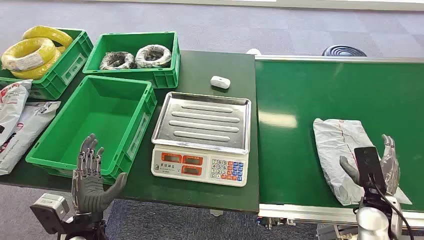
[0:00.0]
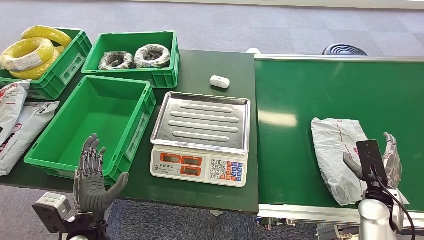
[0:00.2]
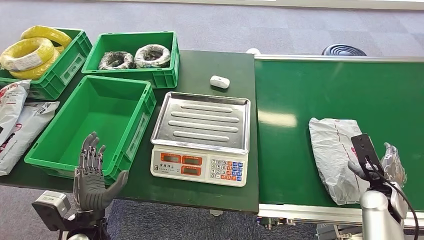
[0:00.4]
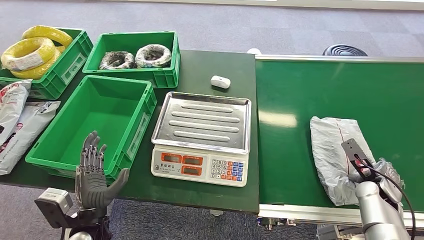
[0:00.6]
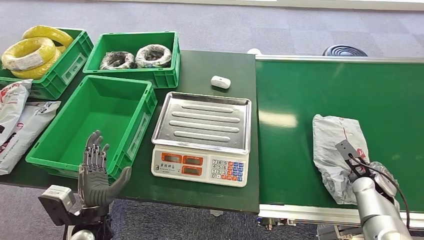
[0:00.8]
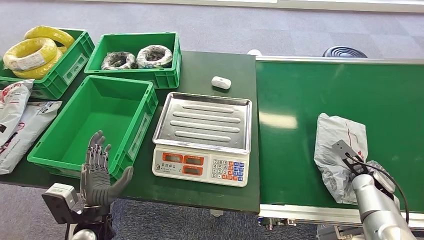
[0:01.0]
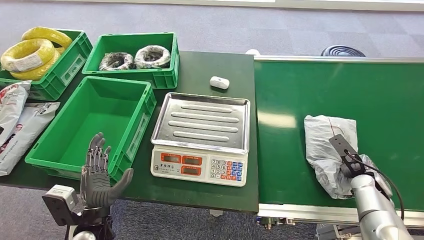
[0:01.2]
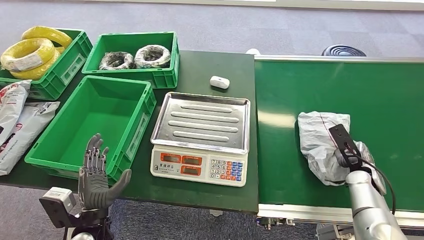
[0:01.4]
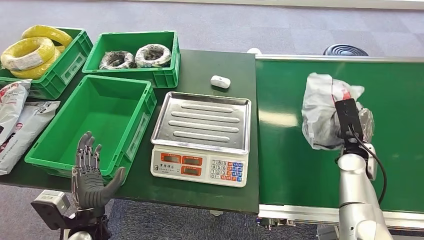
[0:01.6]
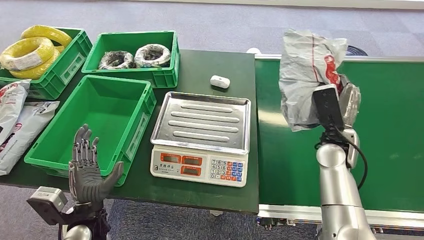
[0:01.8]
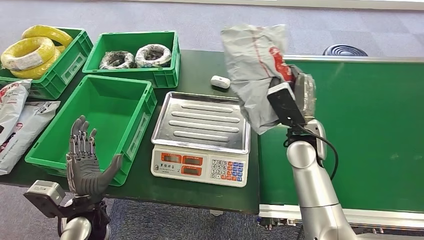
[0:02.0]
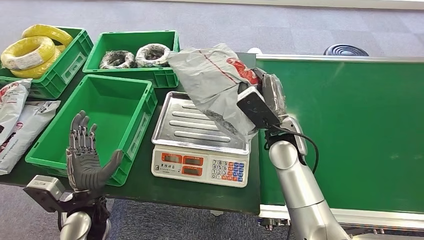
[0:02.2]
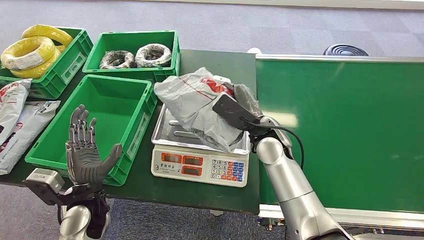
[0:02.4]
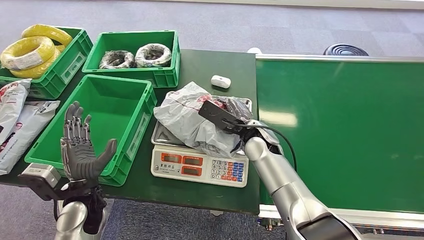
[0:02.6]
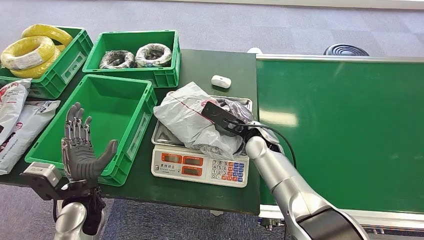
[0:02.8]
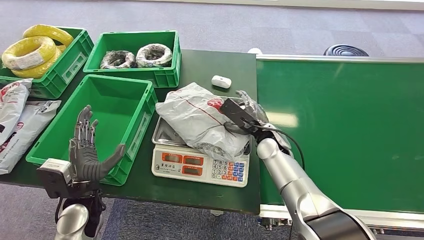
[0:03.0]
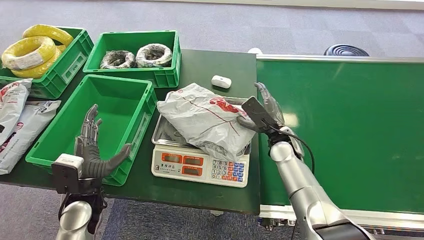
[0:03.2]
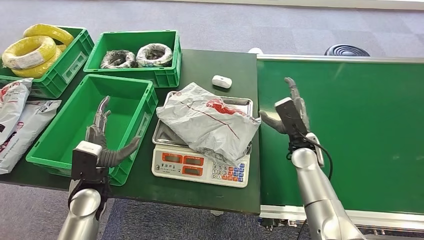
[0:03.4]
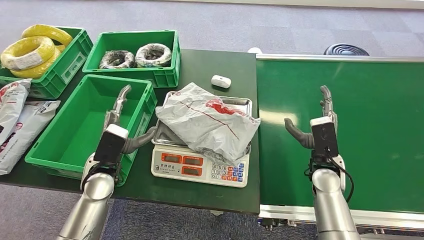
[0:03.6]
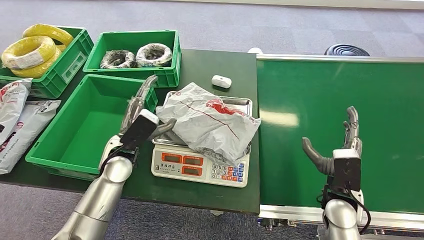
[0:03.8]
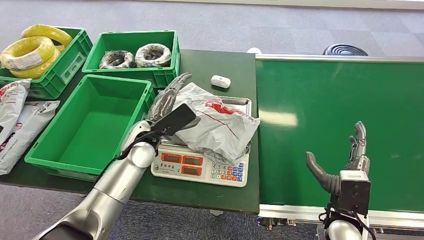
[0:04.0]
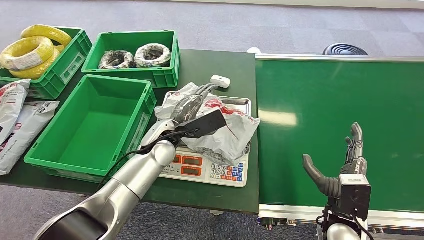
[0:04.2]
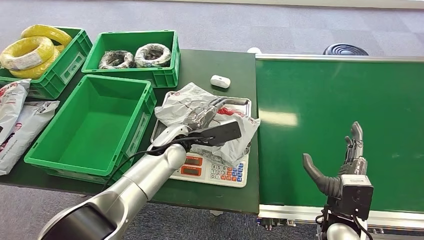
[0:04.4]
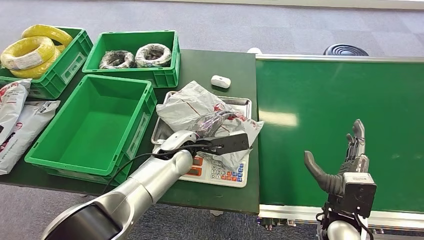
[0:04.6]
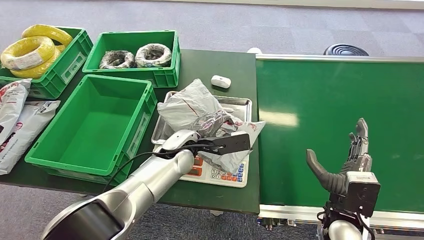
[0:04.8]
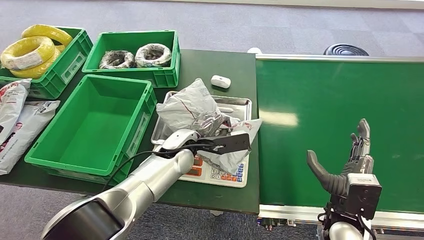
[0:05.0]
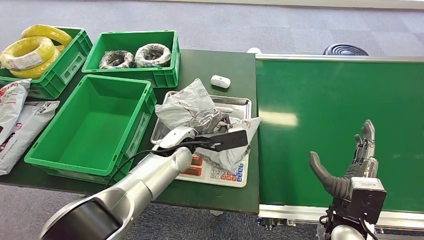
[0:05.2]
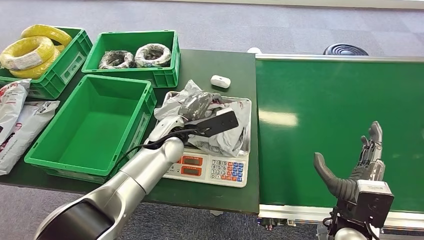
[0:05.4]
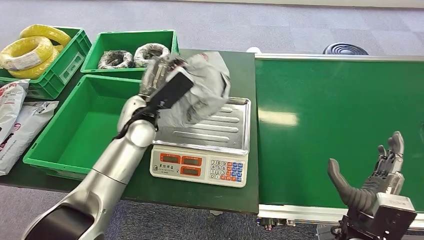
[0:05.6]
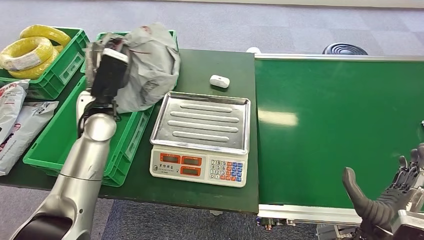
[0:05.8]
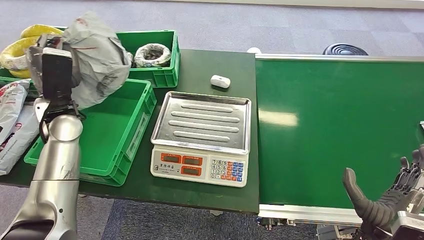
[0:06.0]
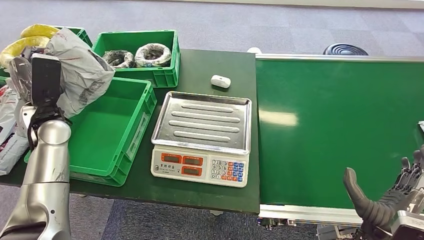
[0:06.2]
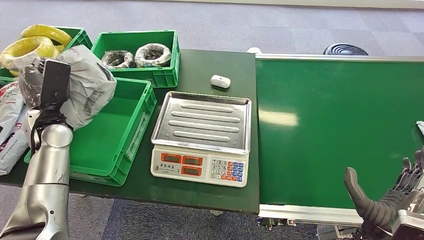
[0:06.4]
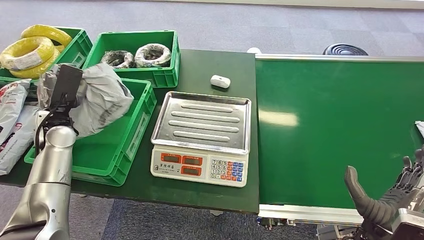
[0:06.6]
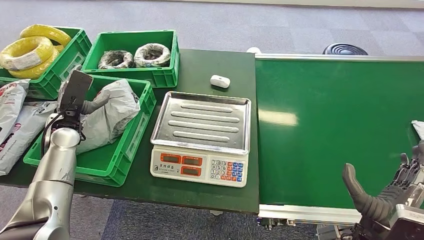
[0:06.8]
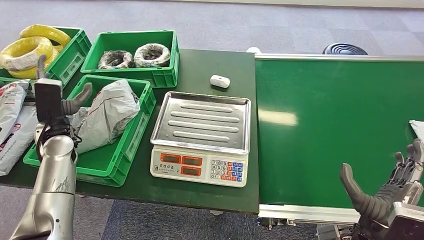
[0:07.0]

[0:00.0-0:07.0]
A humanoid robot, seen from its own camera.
Task of the whole recording: Weigh the package on the weighing device and place it in the left basket.
Step, 0:00.0 to 0:01.6: Pick up the package from the conveyor belt.
Step, 0:01.8 to 0:03.4: Place the package onto the inbound machine.
Step, 0:03.6 to 0:05.6: Pick up the package from the inbound machine.
Step, 0:06.0 to 0:07.0: Place the package into the parcel locker.

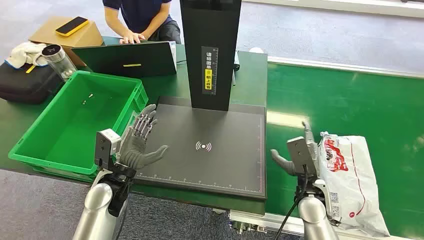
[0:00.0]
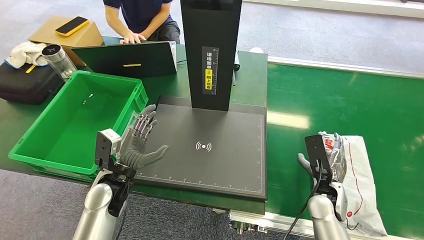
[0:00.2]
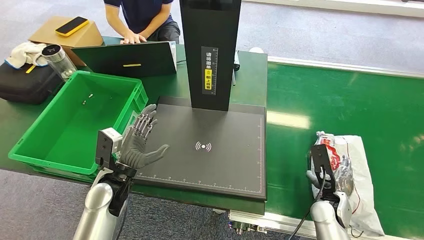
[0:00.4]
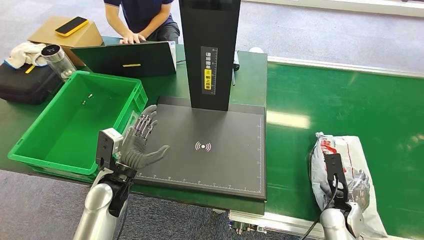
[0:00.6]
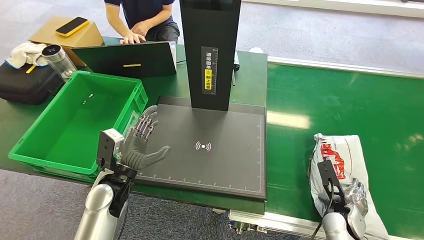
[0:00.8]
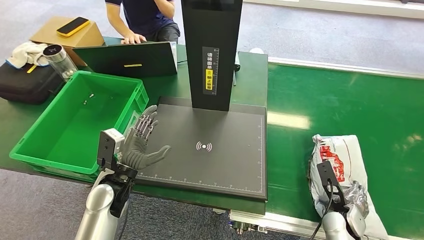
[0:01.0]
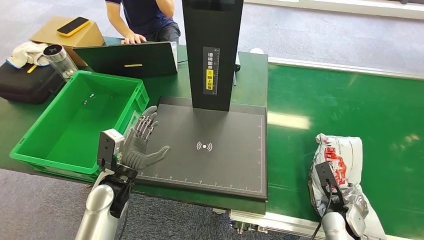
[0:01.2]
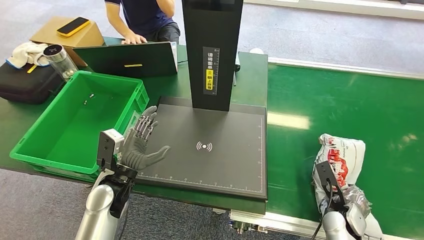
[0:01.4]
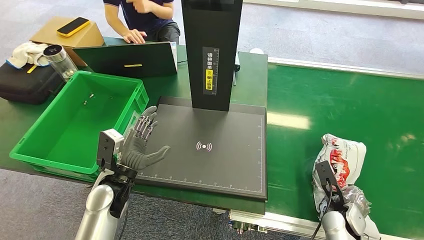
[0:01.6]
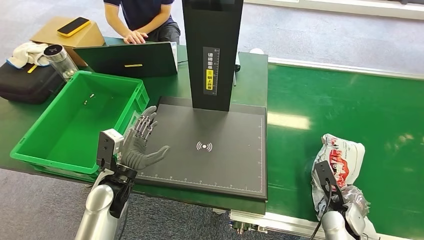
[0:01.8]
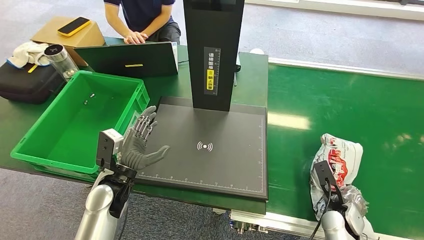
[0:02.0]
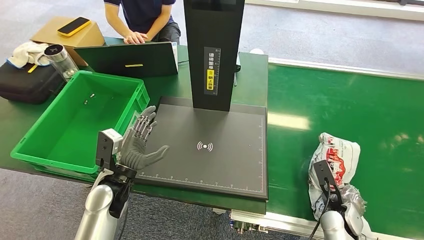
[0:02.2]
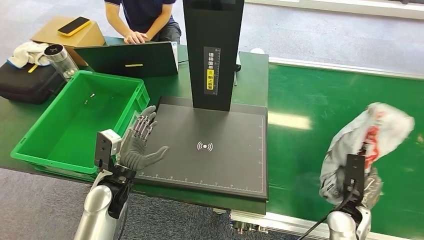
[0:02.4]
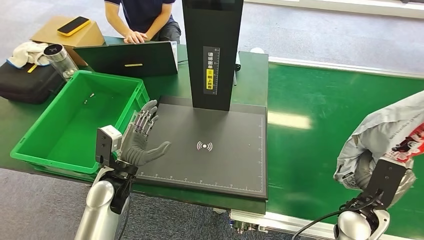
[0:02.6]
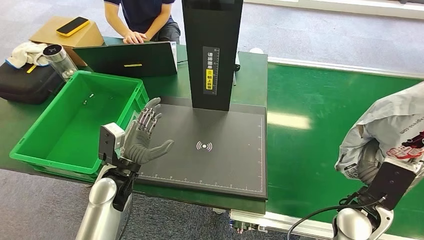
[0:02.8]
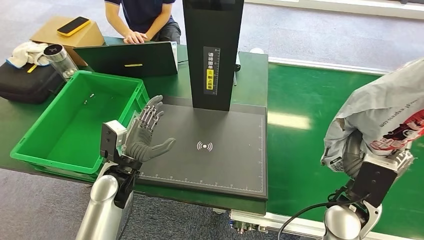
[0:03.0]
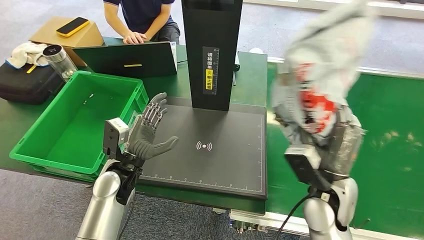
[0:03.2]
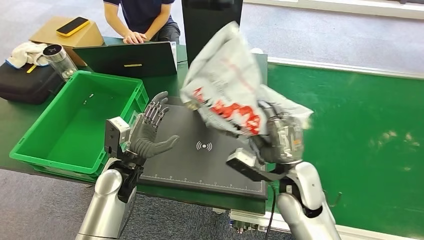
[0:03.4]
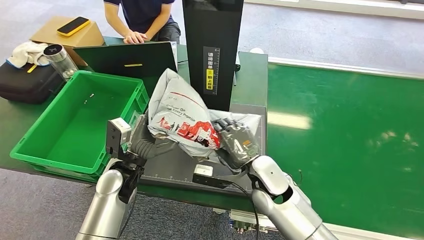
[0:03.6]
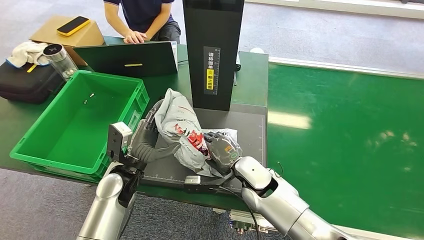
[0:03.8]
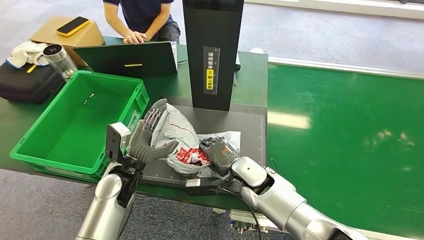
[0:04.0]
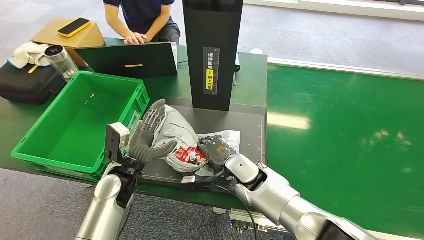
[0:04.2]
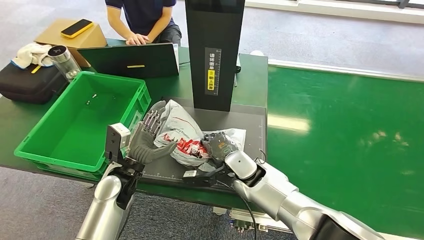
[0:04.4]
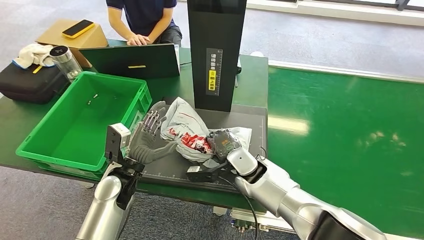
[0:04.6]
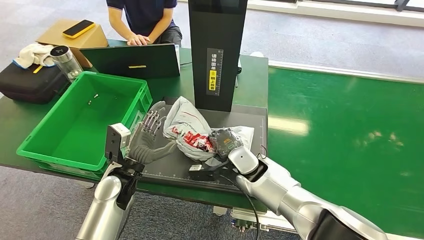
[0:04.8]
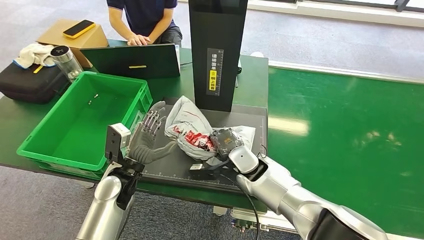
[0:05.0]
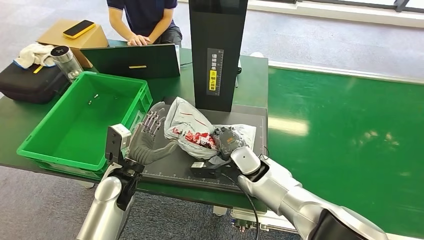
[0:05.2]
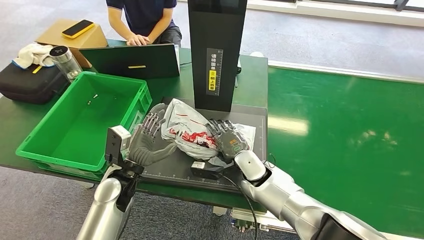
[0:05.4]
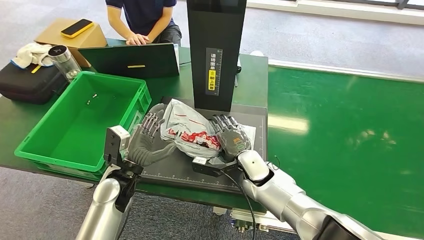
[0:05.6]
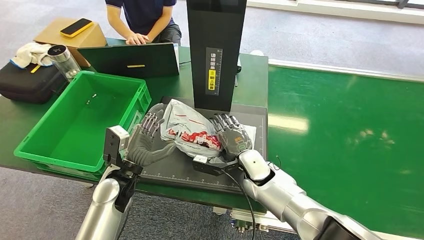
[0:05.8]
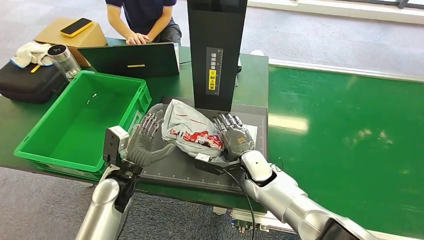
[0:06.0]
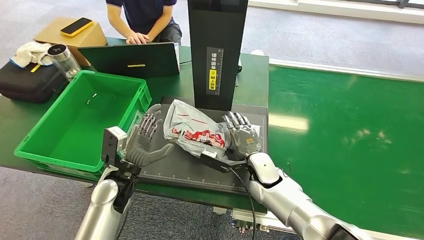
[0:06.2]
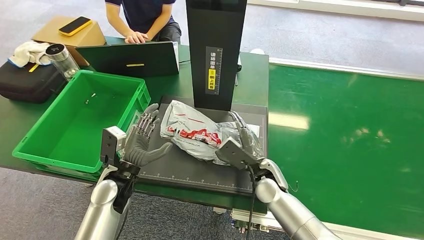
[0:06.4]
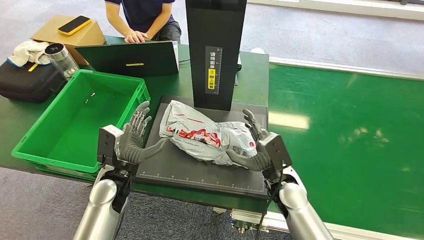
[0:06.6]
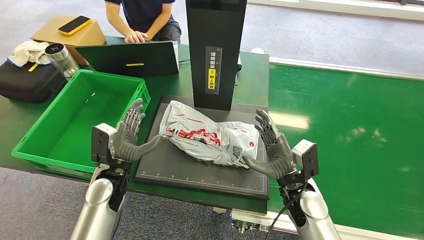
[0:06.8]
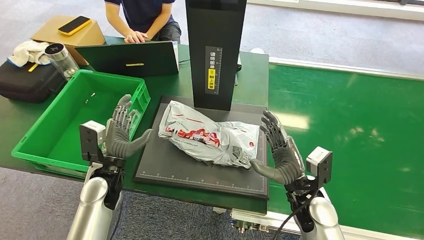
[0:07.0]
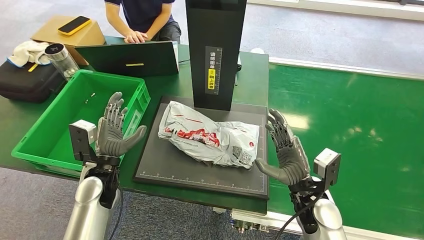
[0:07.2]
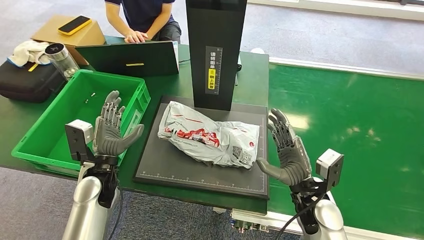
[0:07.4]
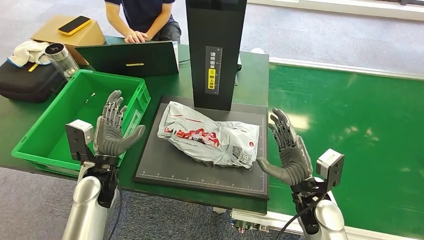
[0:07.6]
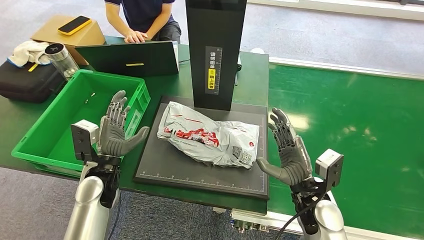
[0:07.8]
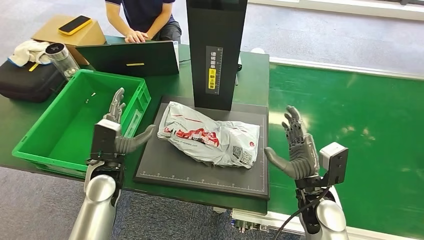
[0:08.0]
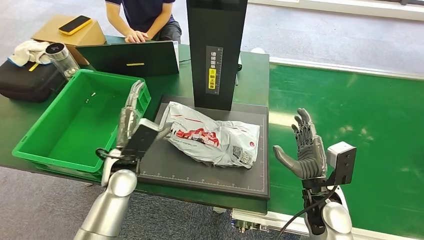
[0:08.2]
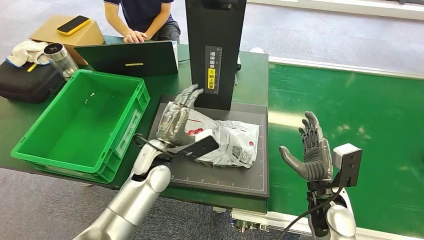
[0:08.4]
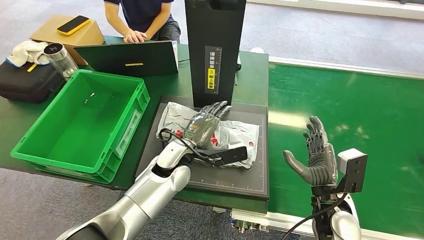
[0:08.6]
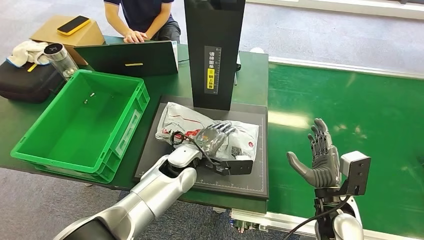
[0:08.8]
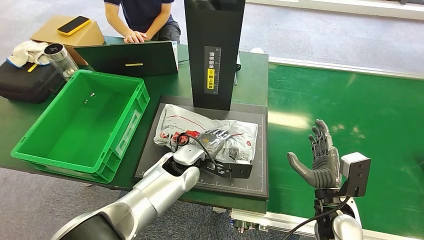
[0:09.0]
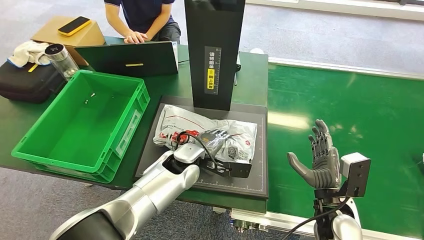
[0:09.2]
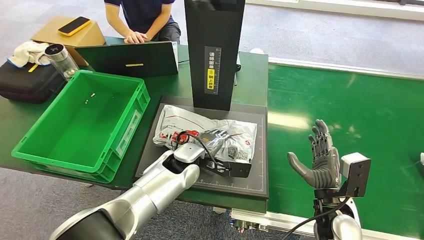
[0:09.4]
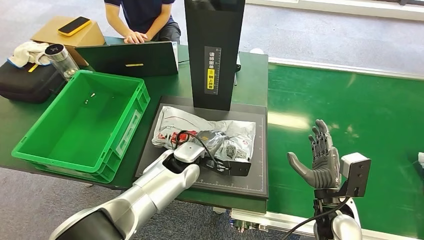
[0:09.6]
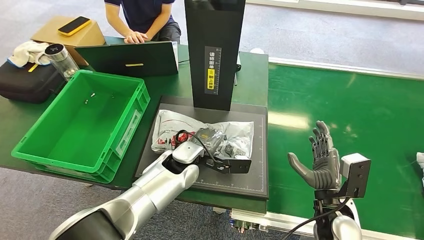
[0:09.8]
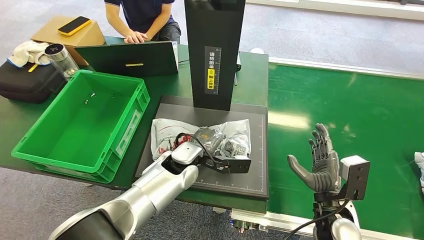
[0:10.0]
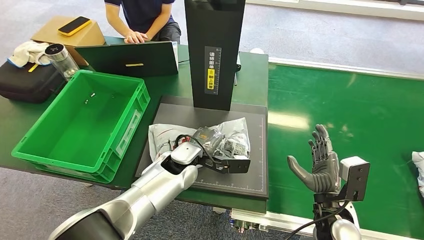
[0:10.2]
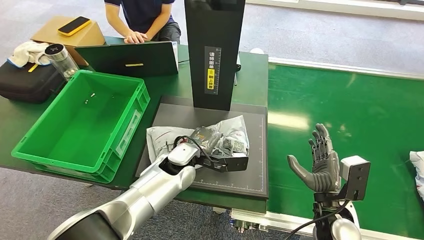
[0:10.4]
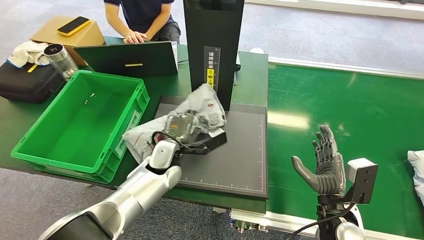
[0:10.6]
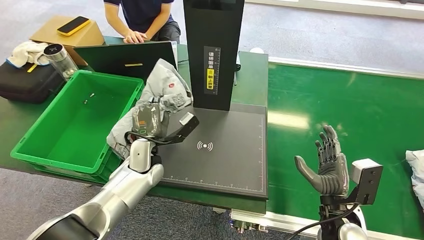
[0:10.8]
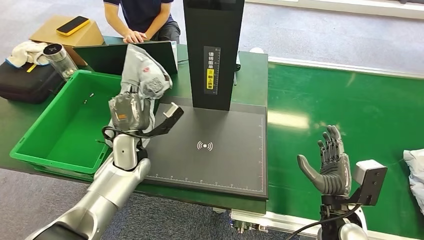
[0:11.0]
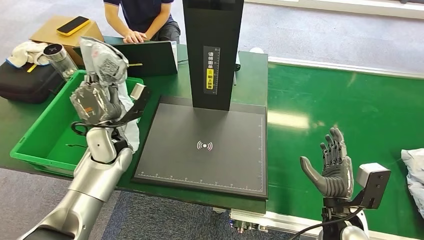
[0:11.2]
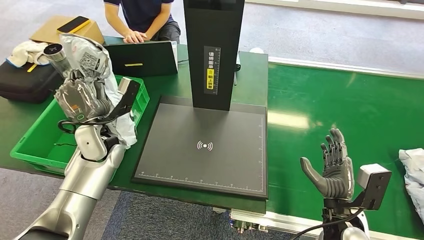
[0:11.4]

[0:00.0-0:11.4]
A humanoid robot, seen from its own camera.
Task of the whole recording: Weigh the package on the weighing device and place it in the left basket.
Step, 0:00.0 to 0:02.6: Pick up the package from the conveyor belt.
Step, 0:02.8 to 0:06.6: Place the package onto the inbound machine.
Step, 0:07.0 to 0:11.2: Pick up the package from the inbound machine.
0:01.4 to 0:02.8: The right hand travels upward by some 10 cm.
